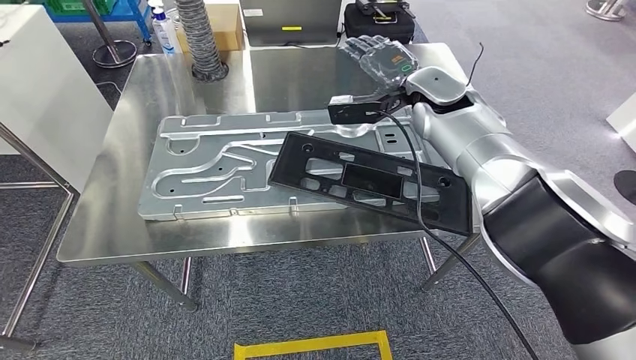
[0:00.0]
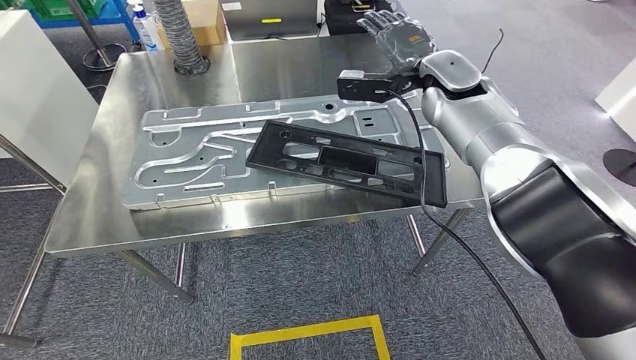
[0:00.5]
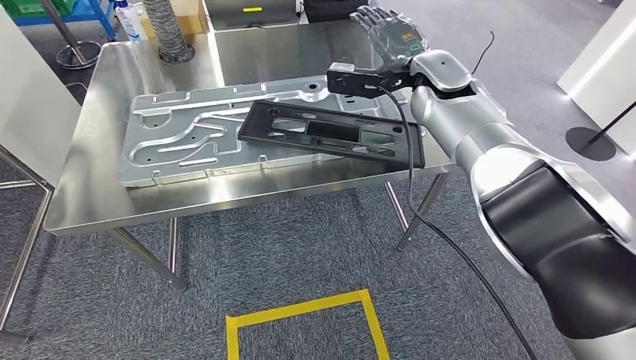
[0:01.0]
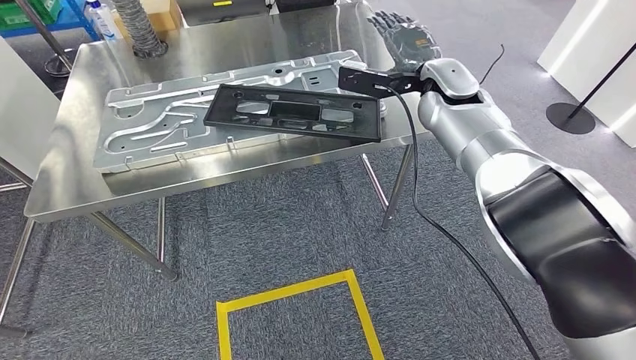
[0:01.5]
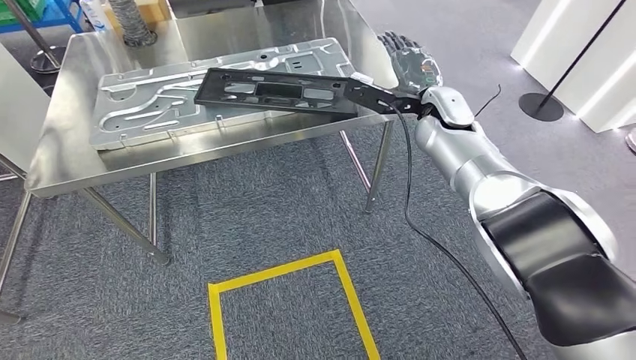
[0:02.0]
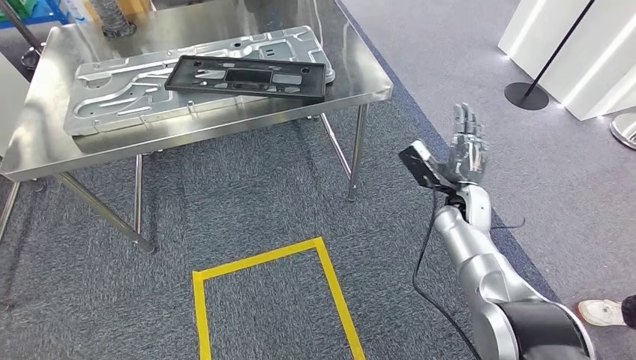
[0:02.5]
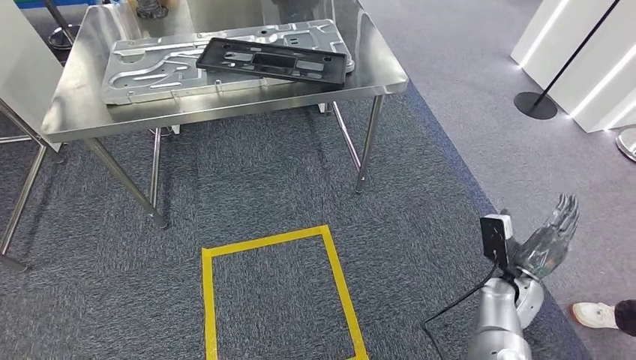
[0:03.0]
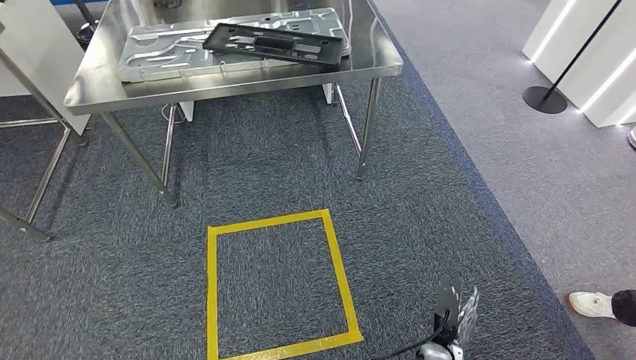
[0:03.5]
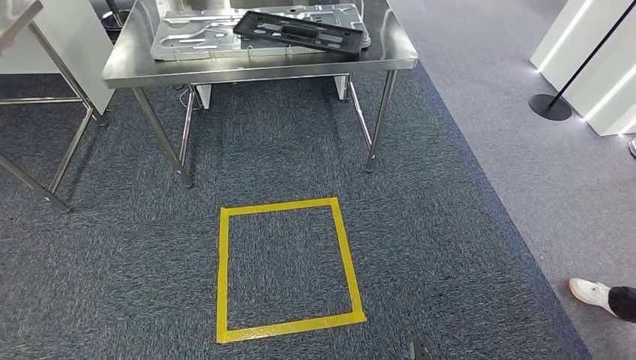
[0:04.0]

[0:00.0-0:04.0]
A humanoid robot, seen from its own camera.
Step, 0:01.0 to 0:04.0: Move to the initial position of the shelf.

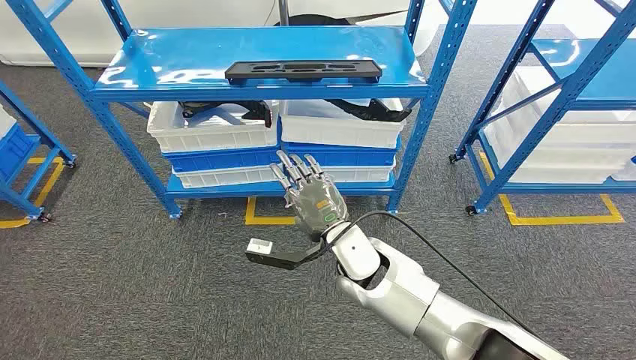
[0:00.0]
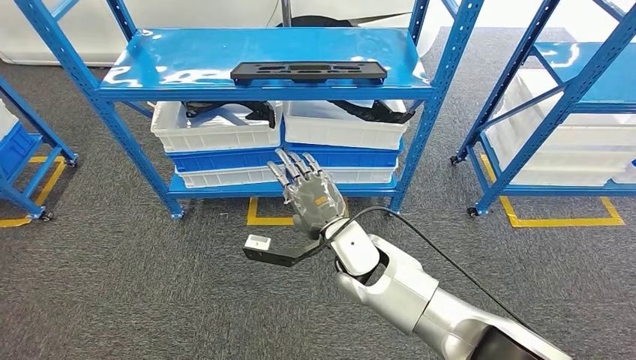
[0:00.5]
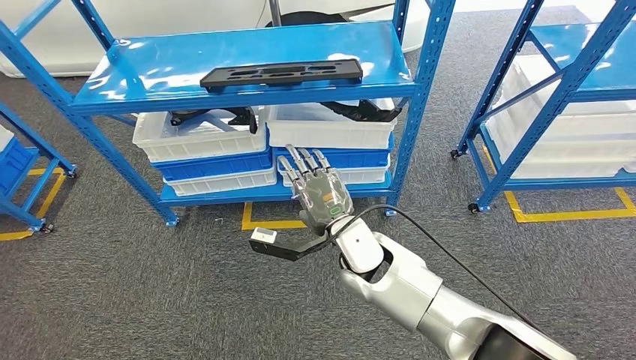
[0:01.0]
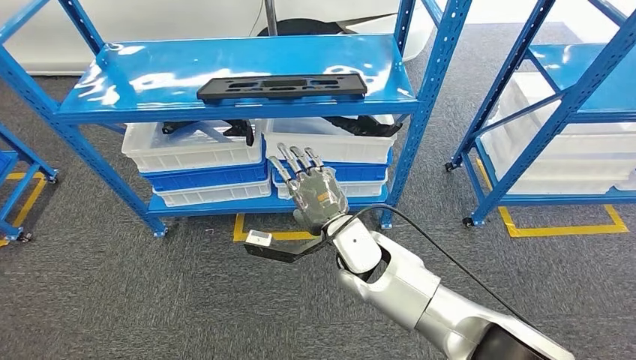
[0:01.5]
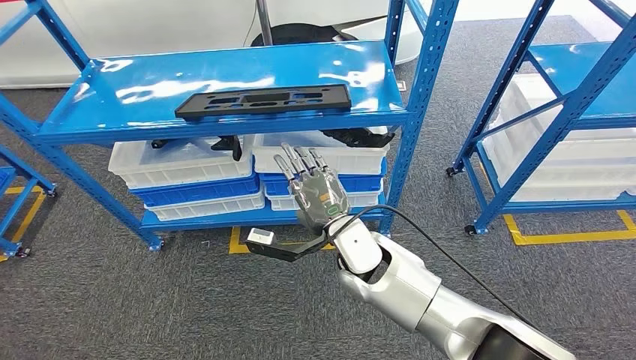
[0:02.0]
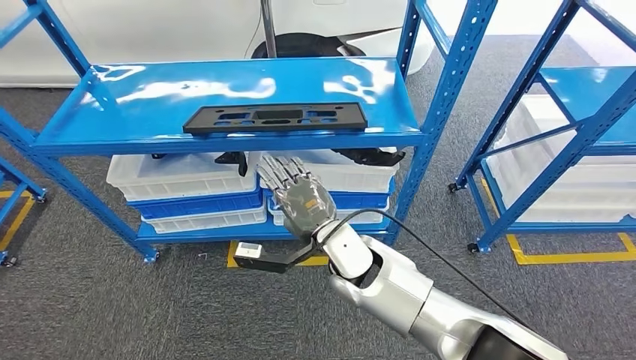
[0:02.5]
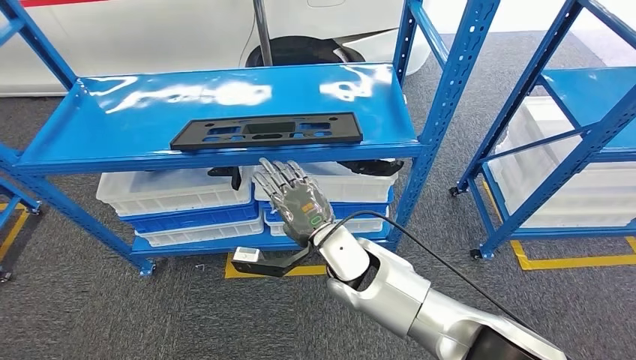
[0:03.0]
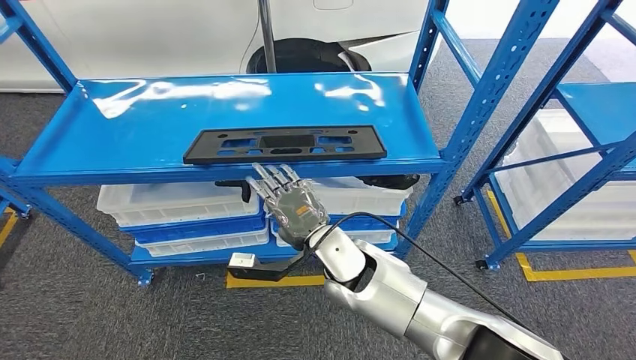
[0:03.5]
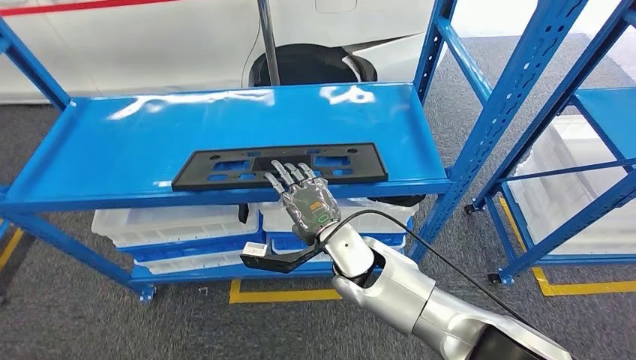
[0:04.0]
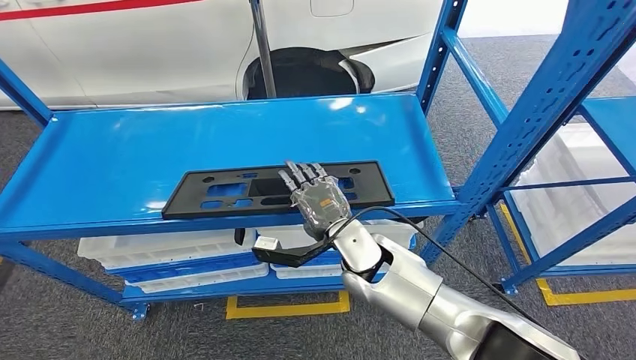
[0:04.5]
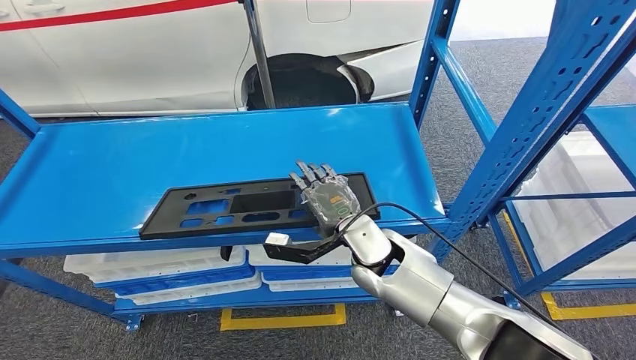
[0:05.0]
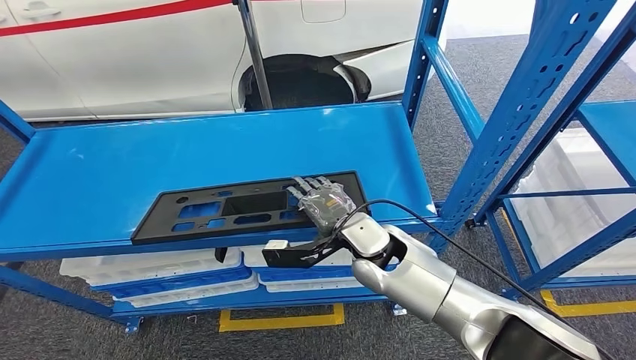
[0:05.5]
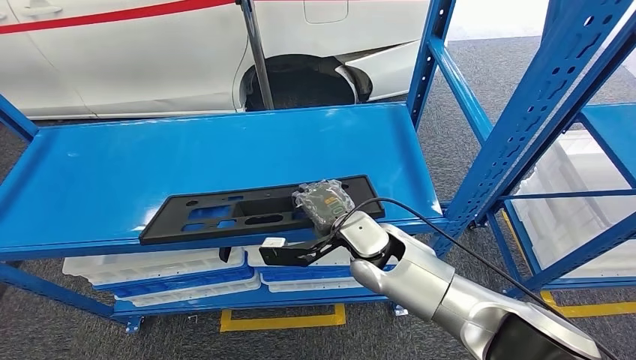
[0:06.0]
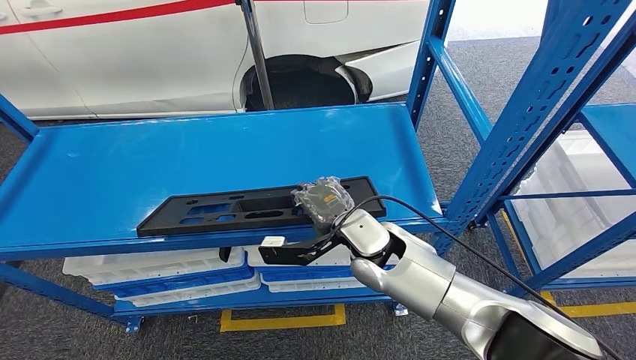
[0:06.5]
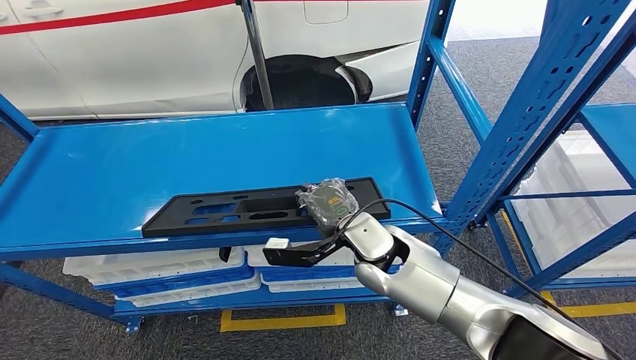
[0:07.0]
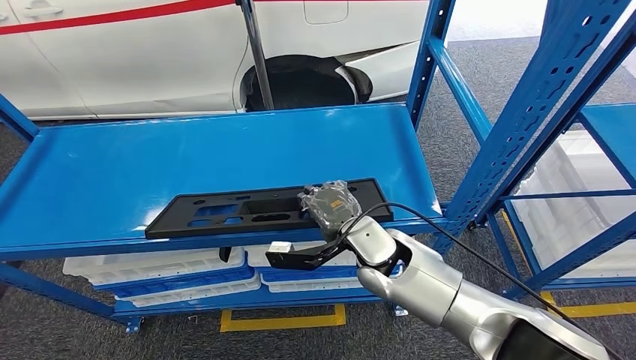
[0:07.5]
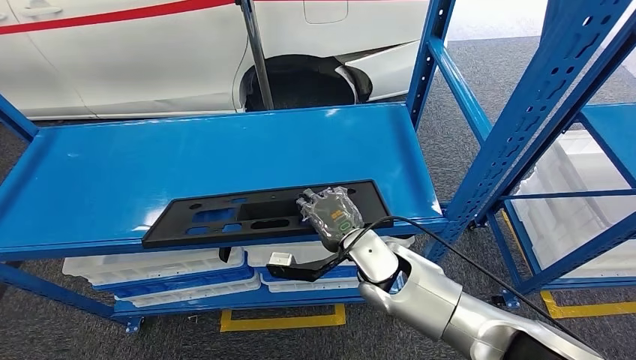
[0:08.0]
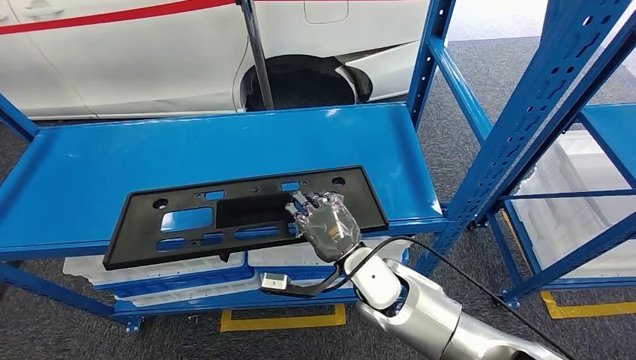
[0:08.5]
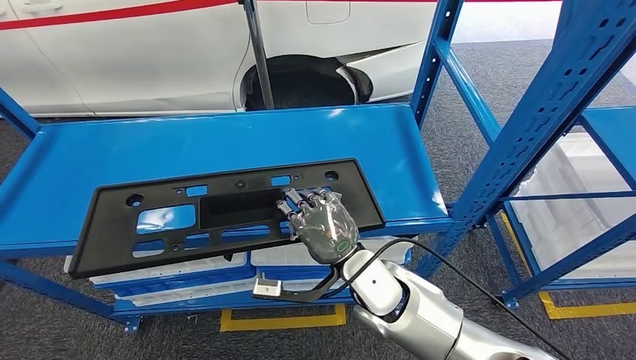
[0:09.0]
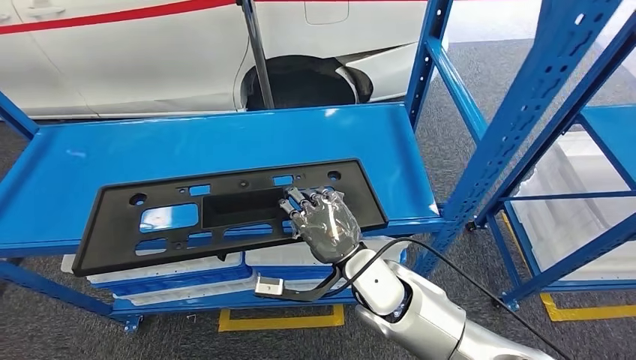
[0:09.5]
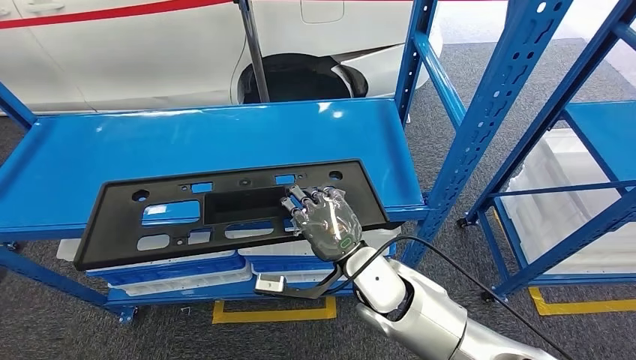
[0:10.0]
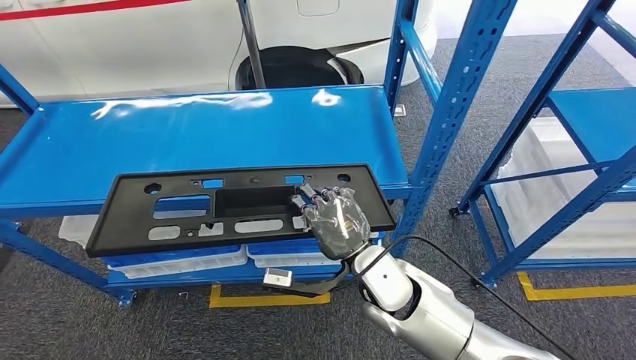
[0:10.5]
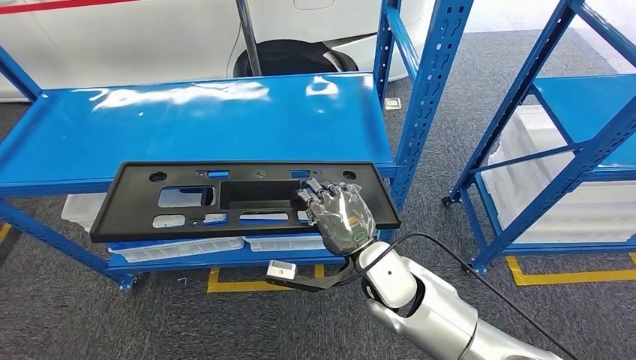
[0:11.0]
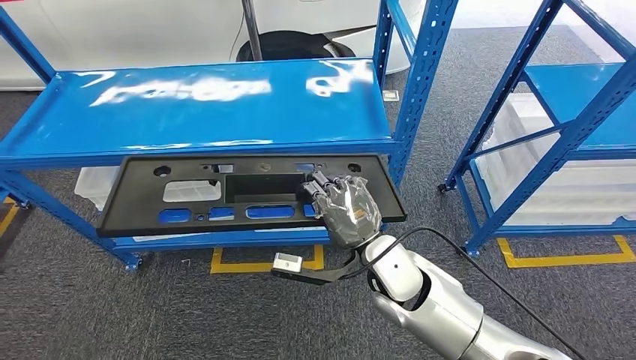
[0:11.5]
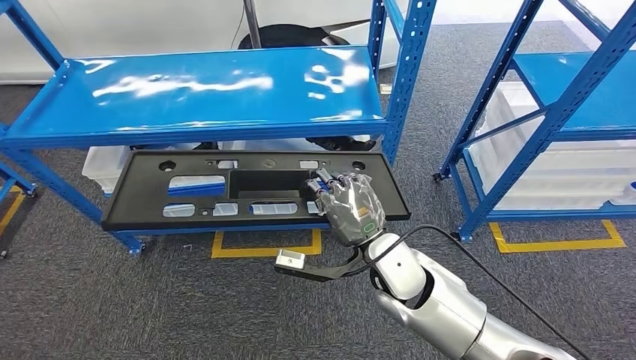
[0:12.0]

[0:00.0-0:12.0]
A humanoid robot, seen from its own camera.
Step, 0:00.0 to 0:09.5: Pick up the large material from the shelf.
0:06.0 to 0:08.0: The hands move only a little.

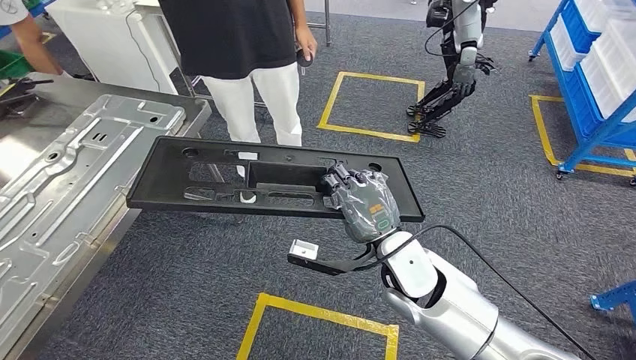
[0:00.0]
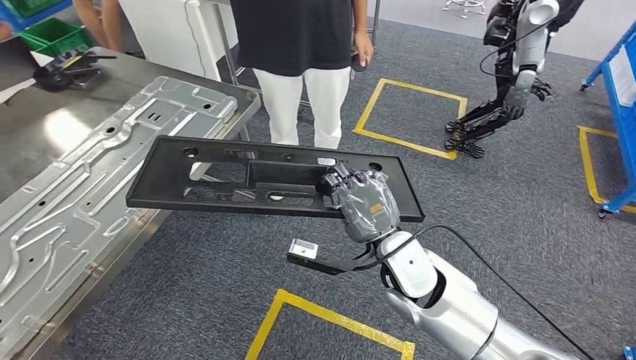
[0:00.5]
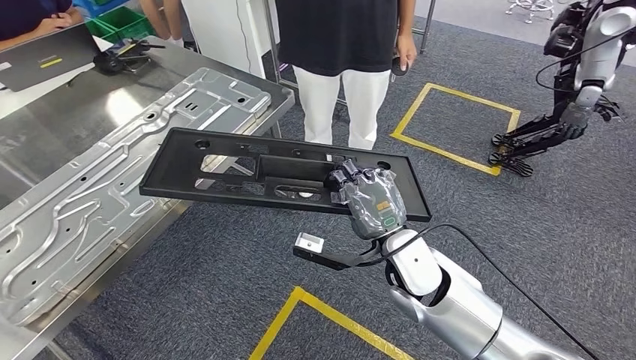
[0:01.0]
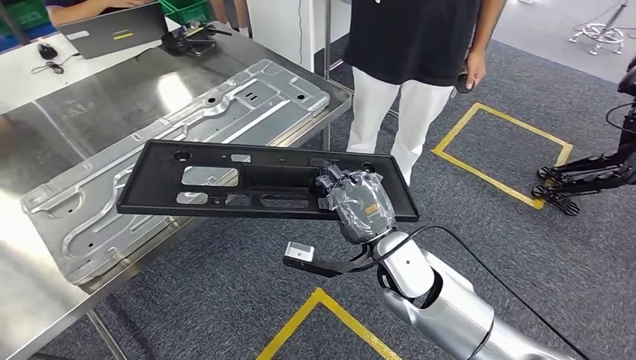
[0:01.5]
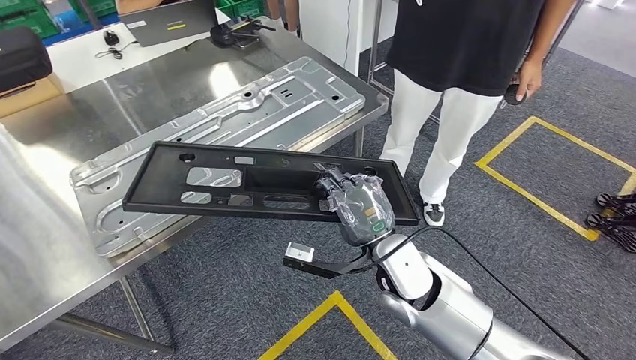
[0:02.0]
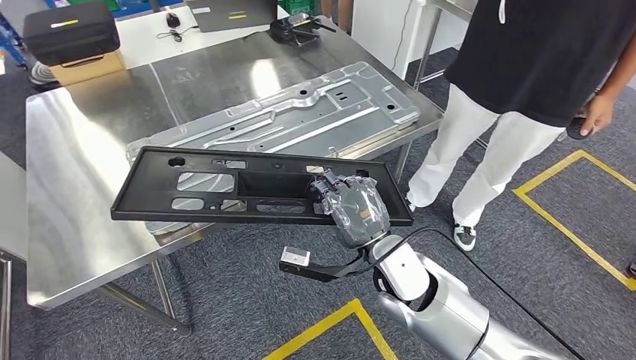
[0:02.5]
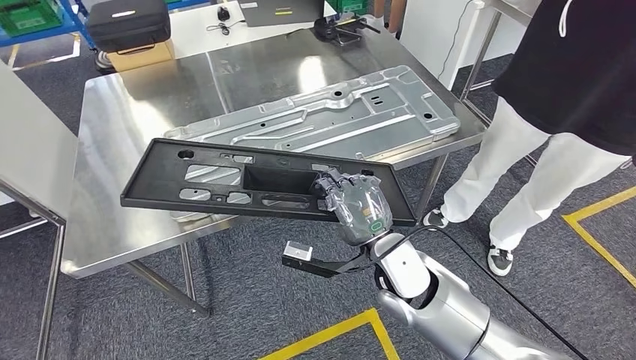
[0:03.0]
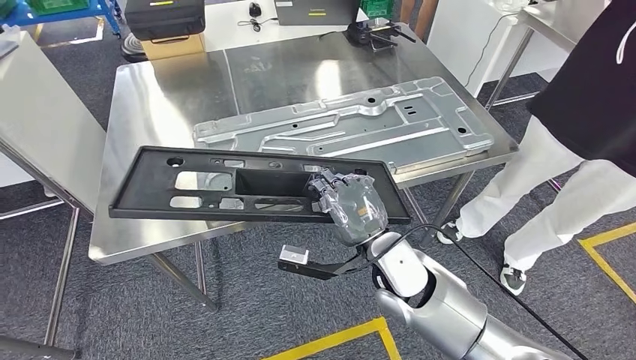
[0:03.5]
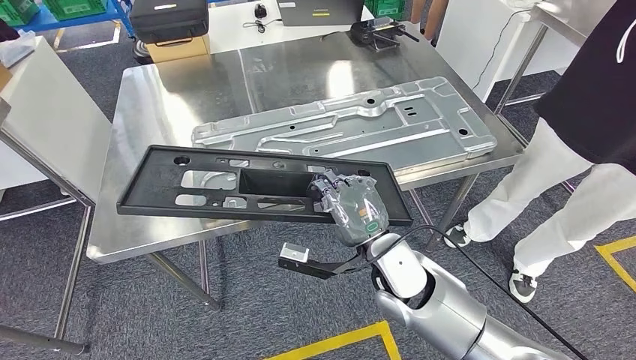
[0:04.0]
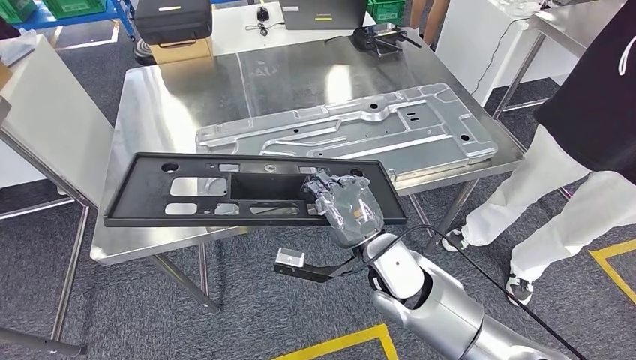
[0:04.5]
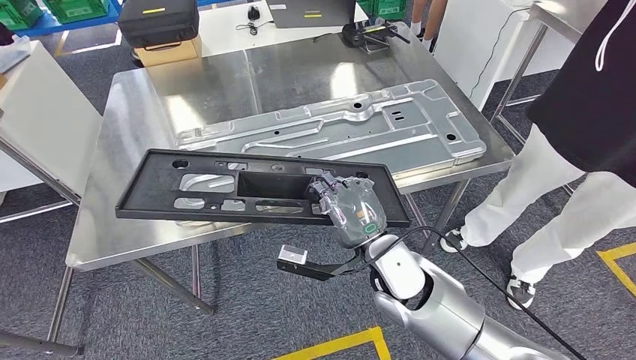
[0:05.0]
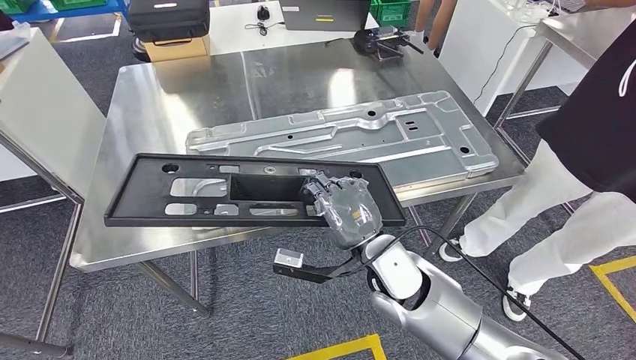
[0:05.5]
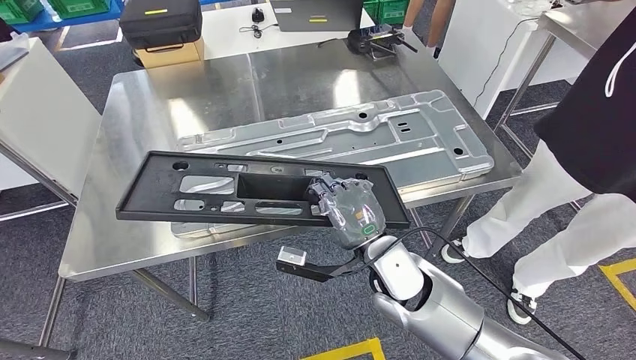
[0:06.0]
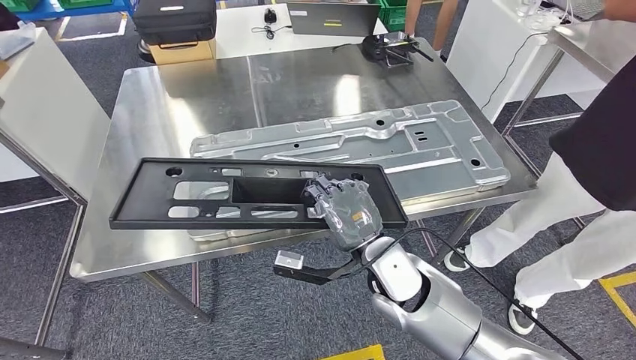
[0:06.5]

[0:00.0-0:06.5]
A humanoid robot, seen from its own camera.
Step, 0:00.0 to 0:02.5: Move the large material to the workbench.
